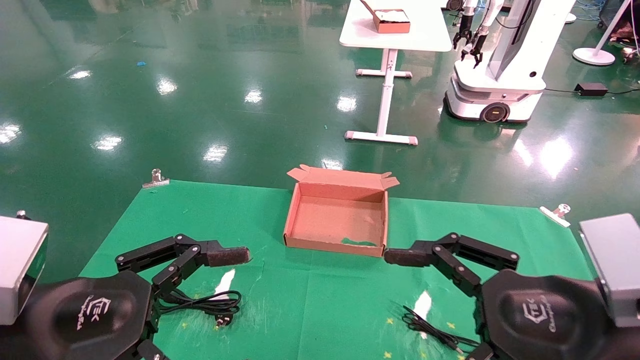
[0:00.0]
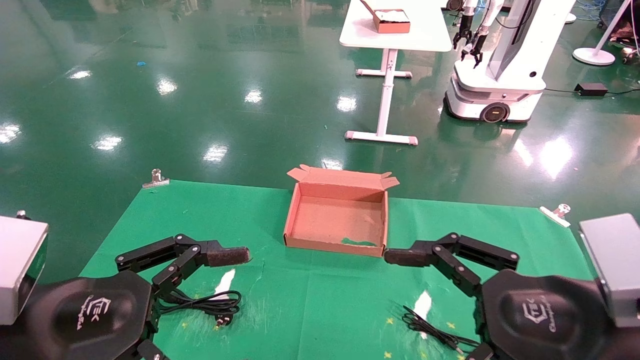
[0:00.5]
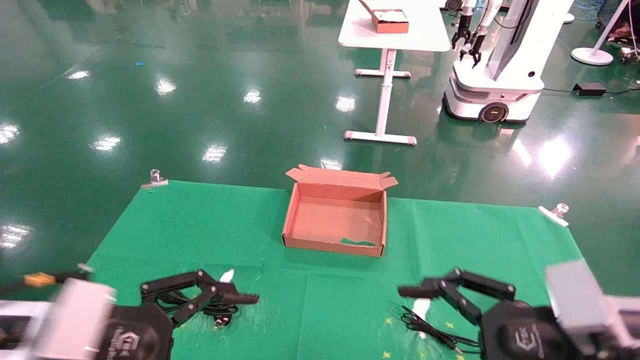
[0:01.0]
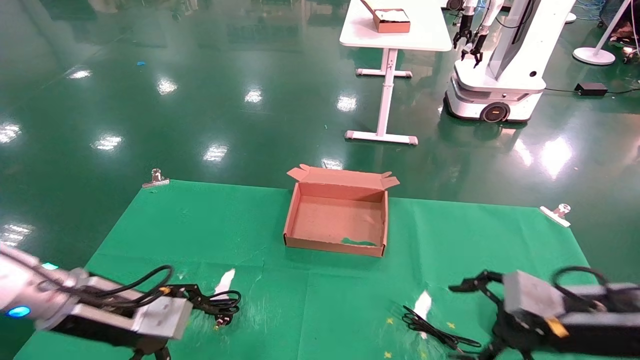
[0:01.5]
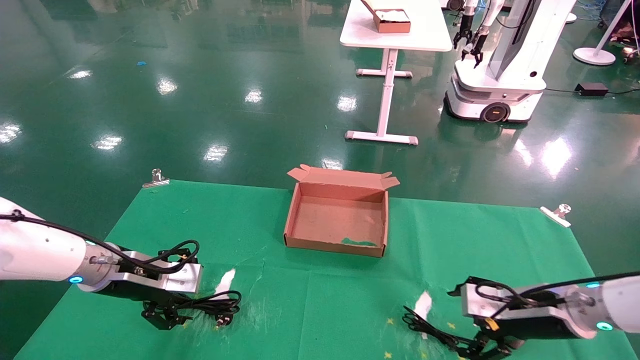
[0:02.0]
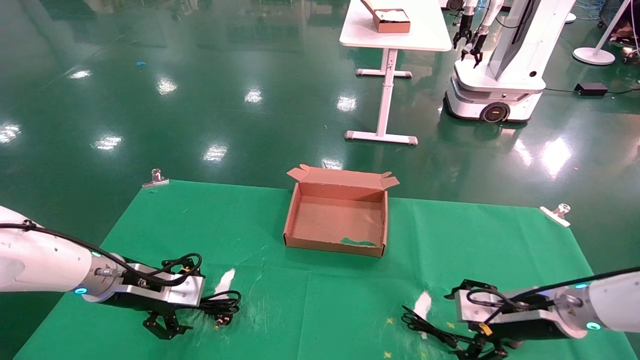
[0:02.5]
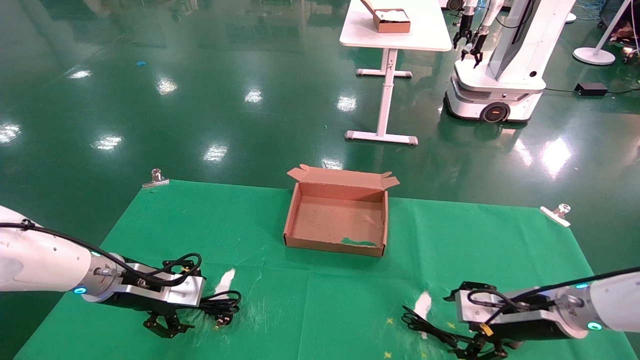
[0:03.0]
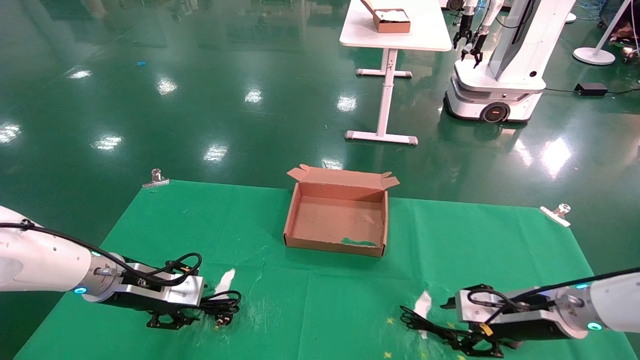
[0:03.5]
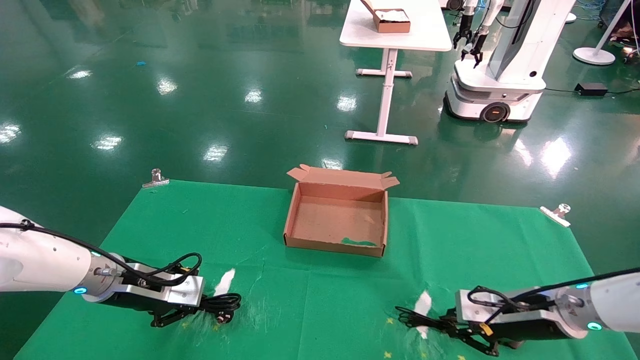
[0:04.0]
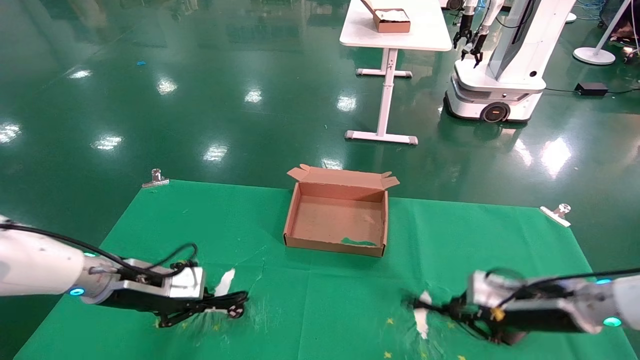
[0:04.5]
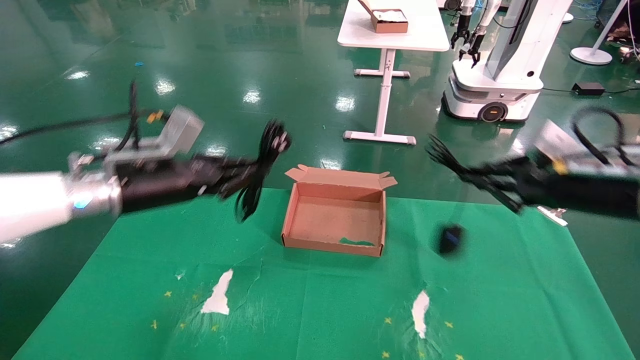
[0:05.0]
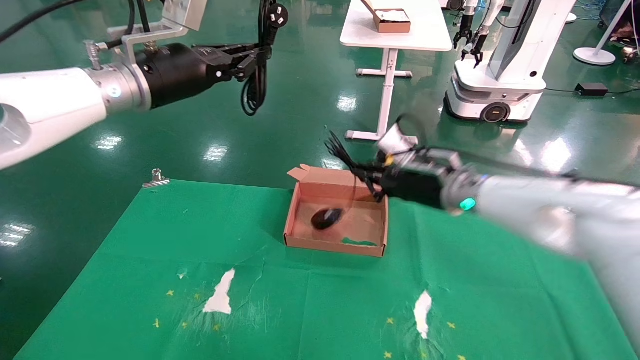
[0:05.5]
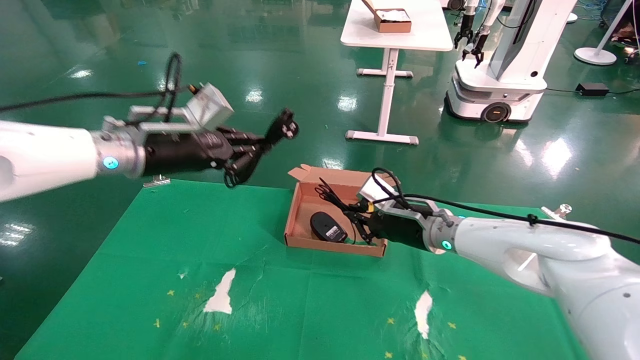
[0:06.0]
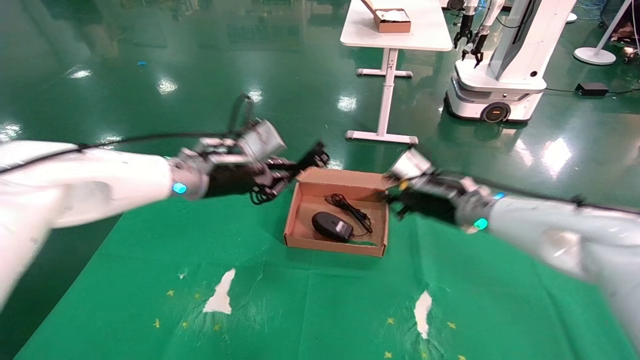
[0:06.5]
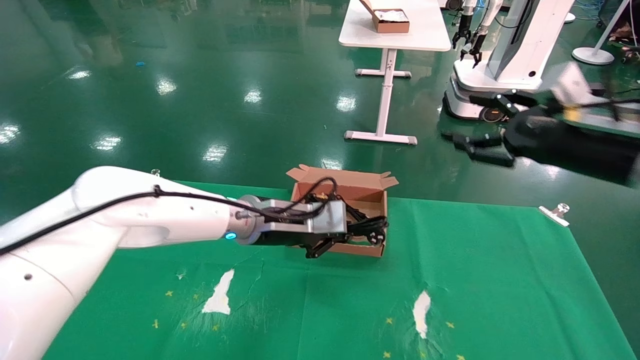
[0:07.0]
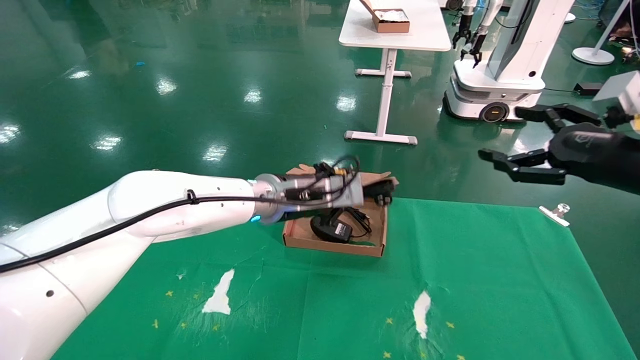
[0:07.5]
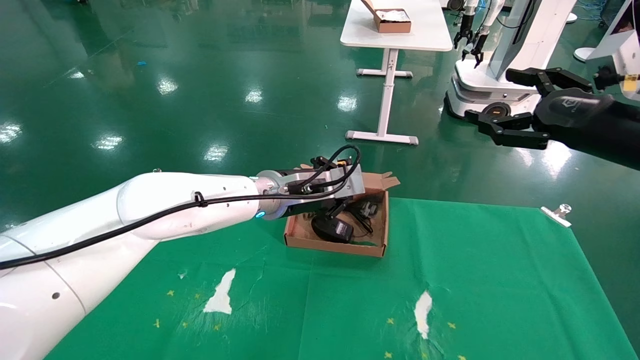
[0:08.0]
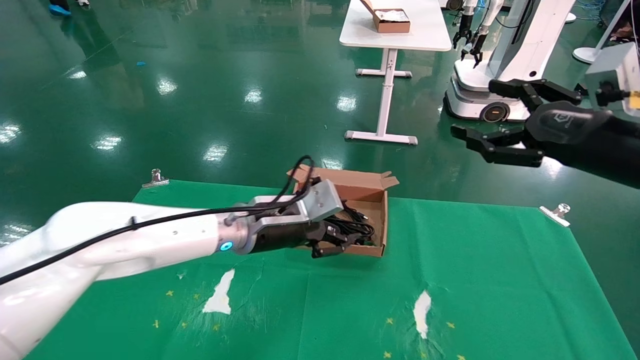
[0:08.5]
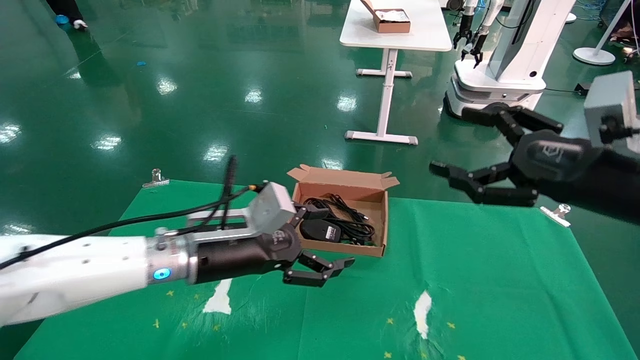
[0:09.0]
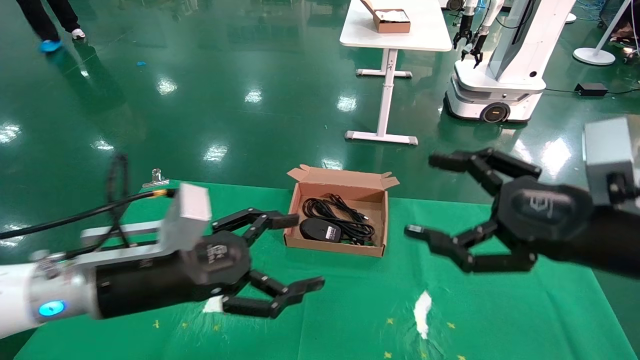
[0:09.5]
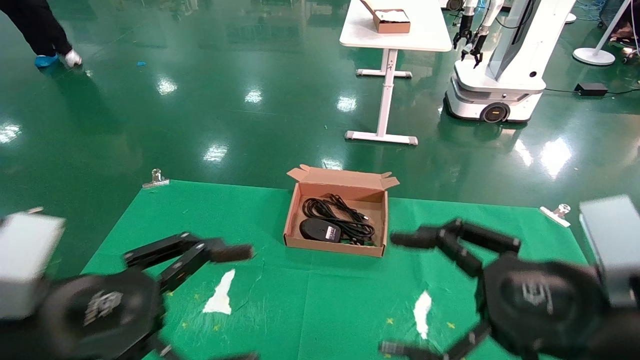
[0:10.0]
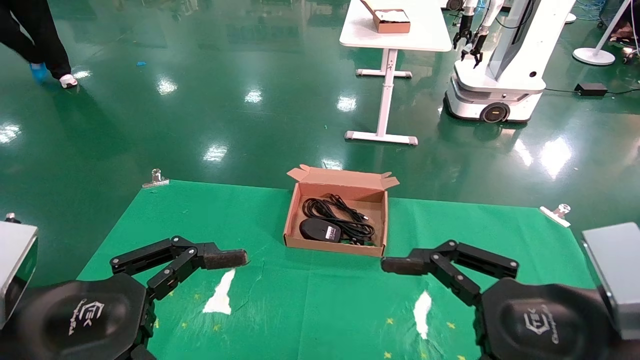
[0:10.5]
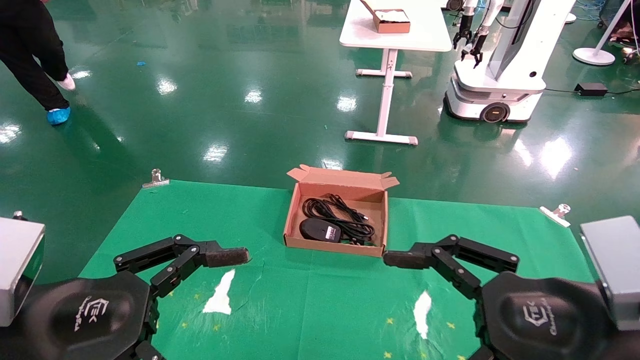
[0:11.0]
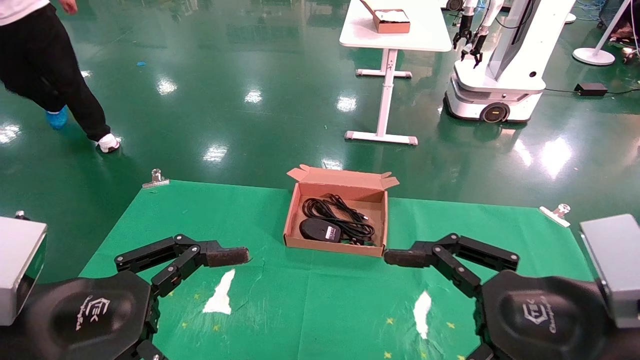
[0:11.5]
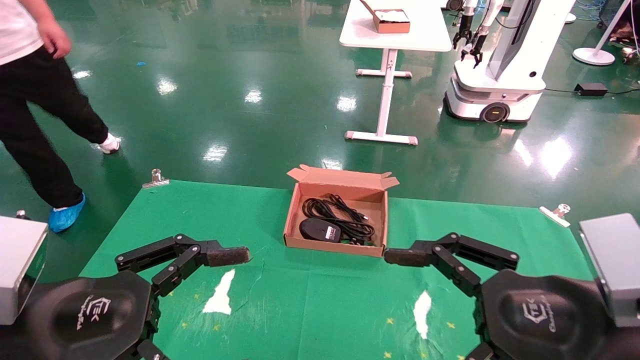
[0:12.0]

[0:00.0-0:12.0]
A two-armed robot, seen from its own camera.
Step, 0:01.0 to 0:04.0: Grab and lift both the mouse and power cord from the accessory packaging area at the same time.
Step, 0:04.5 to 0:08.0: Place the mouse and power cord into the box.
0:00.0 to 0:02.0: The right gripper shifts approximately 25 cm forward and downward. Meanwhile the left gripper moves forward, about 25 cm.
0:02.0 to 0:04.0: The right gripper closes its fingers. Meanwhile the left gripper closes.
0:04.0 to 0:06.0: The left gripper travels upward and to the right by approximately 20 cm. Meanwhile the right gripper travels to the left, upward and forward by approximately 20 cm.
0:06.0 to 0:08.0: The left gripper shifts roughly 20 cm to the right and downward. The right gripper heads to the right, upward and backward, covering roughly 30 cm, and opens its fingers.
0:08.0 to 0:10.0: The right gripper goes about 20 cm backward, to the left and downward, while the left gripper moves backward and to the left, approximately 30 cm, and opens up.
0:10.0 to 0:12.0: There are only small adjustments of the grippers.
